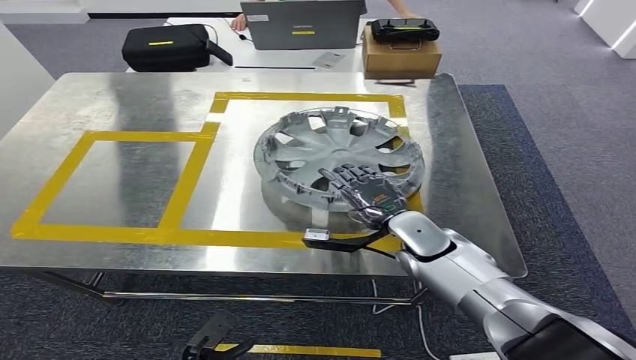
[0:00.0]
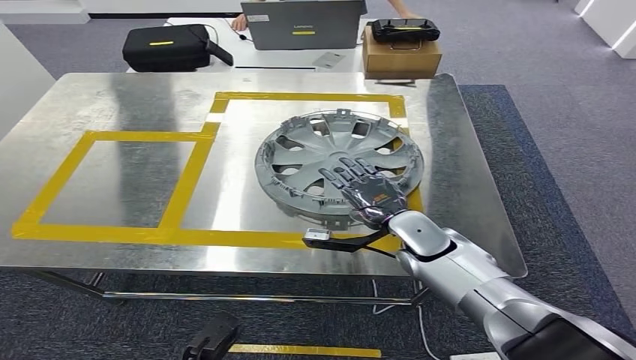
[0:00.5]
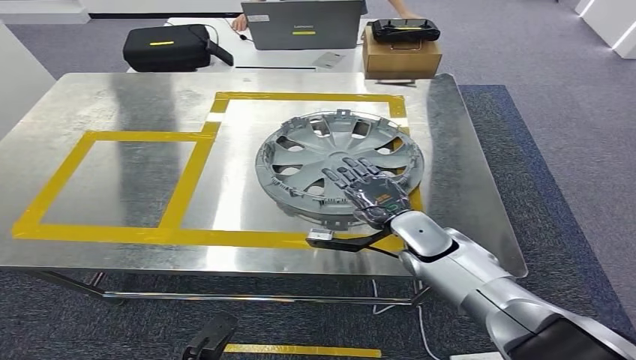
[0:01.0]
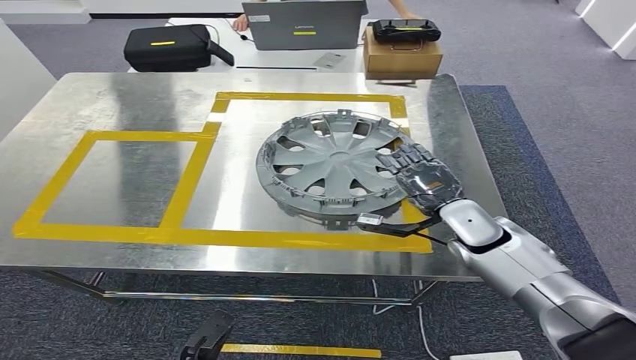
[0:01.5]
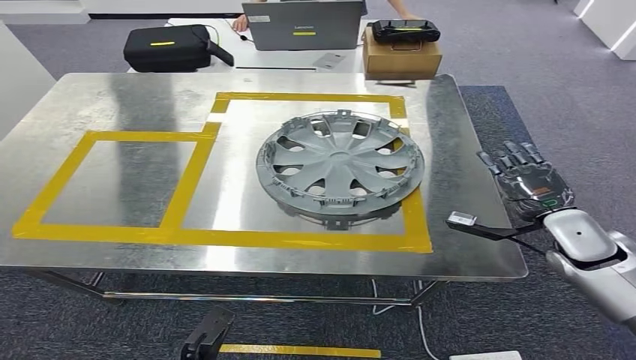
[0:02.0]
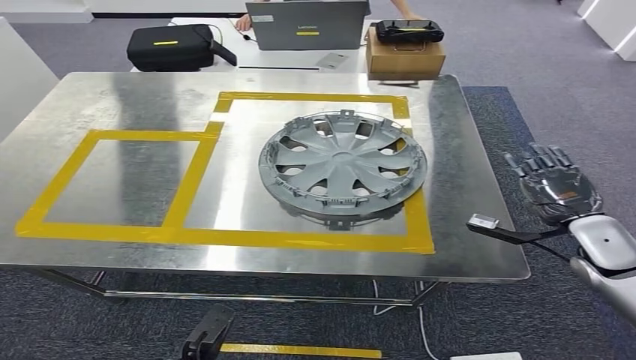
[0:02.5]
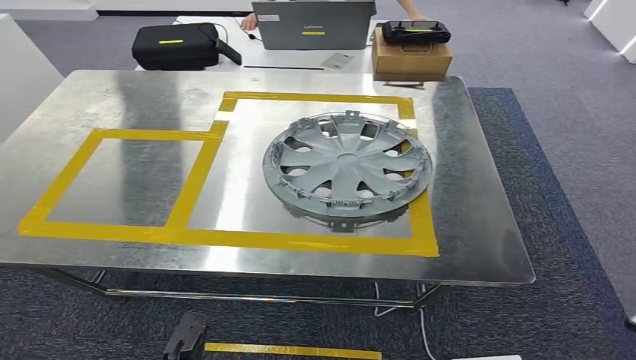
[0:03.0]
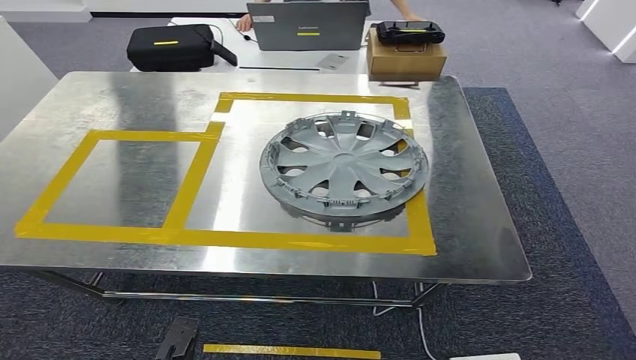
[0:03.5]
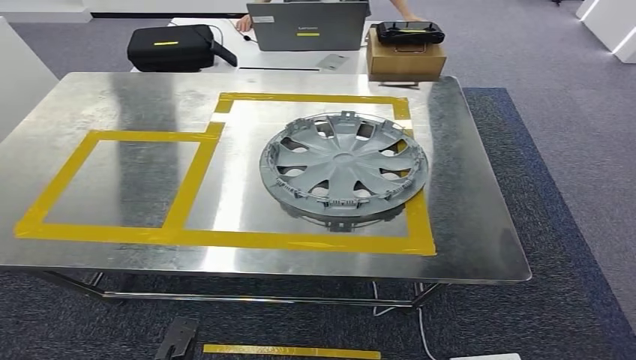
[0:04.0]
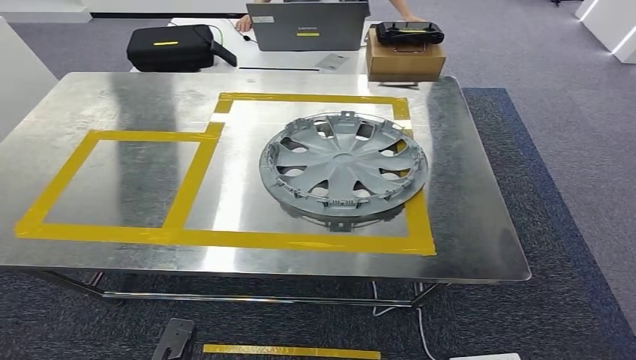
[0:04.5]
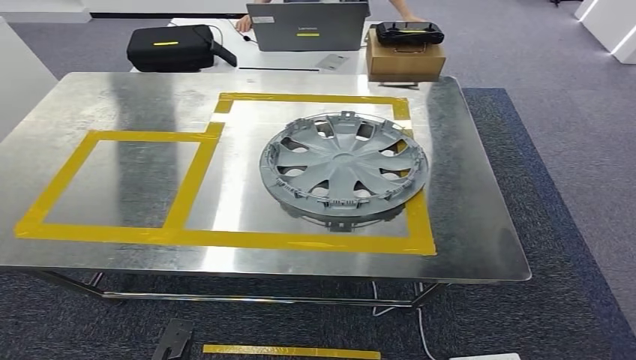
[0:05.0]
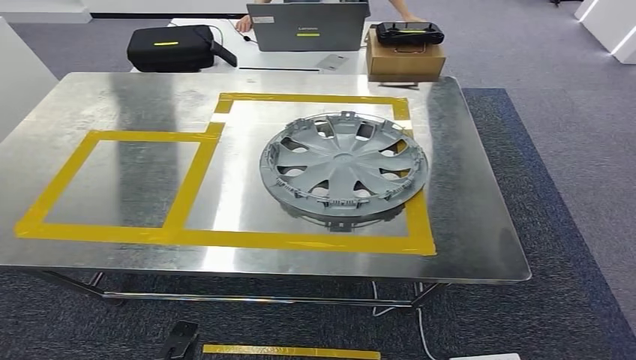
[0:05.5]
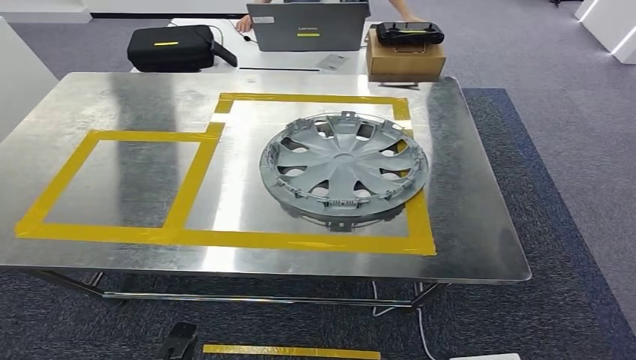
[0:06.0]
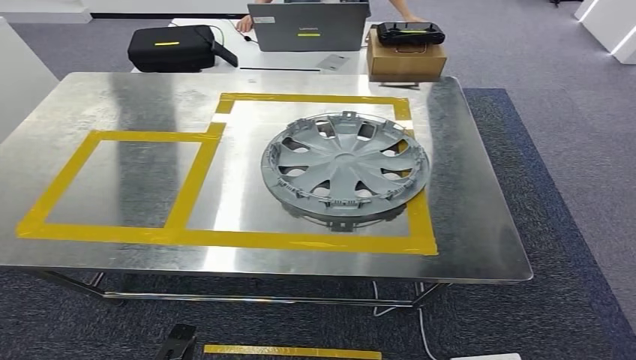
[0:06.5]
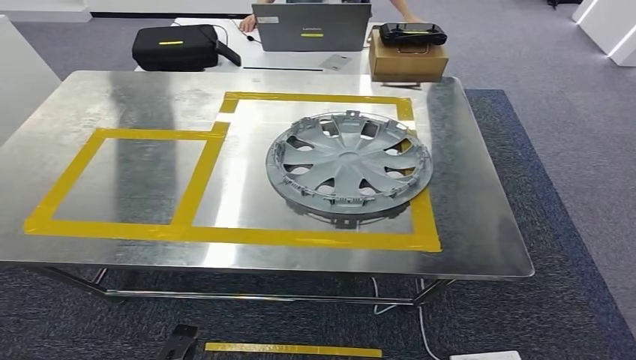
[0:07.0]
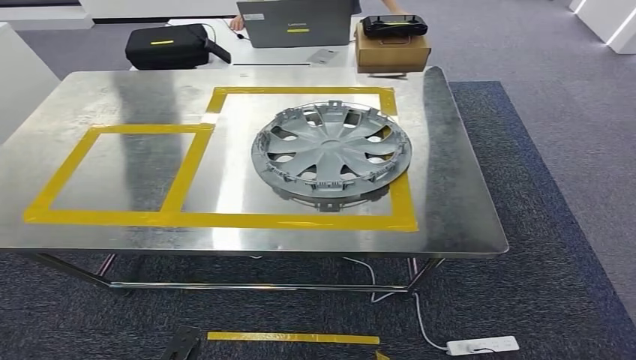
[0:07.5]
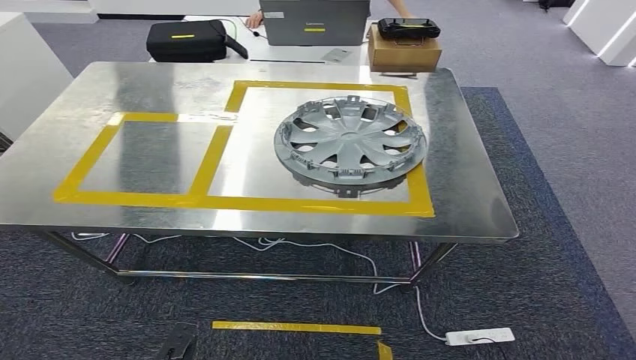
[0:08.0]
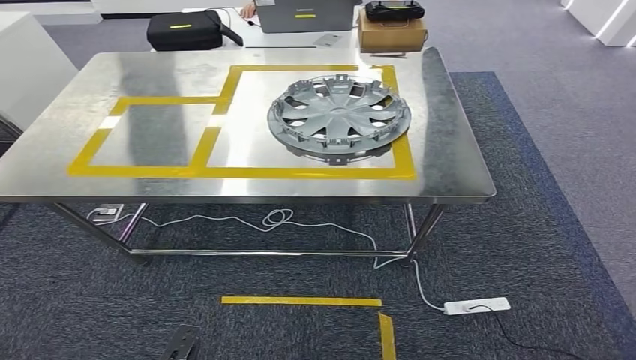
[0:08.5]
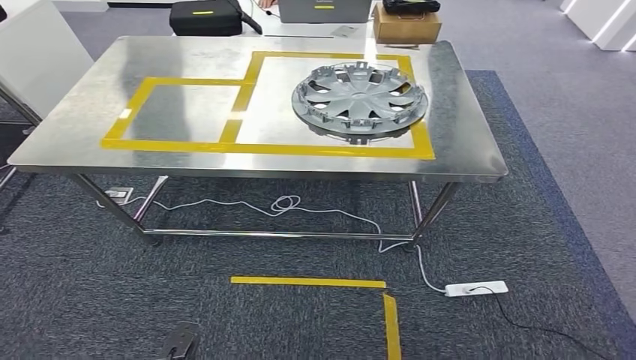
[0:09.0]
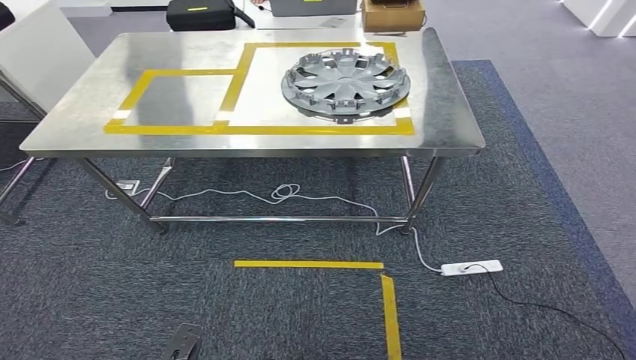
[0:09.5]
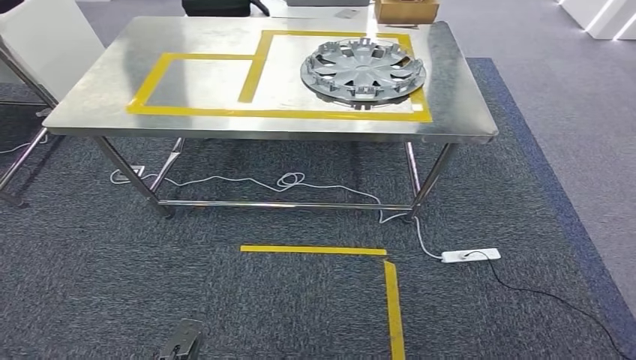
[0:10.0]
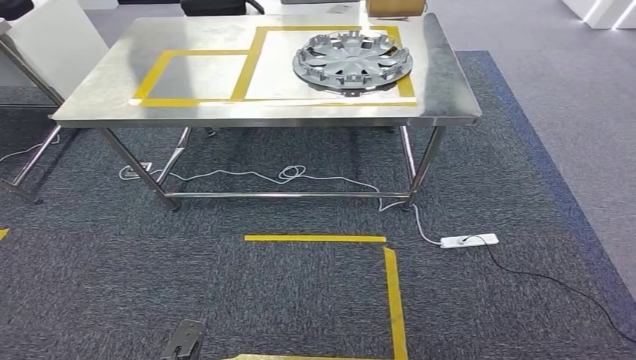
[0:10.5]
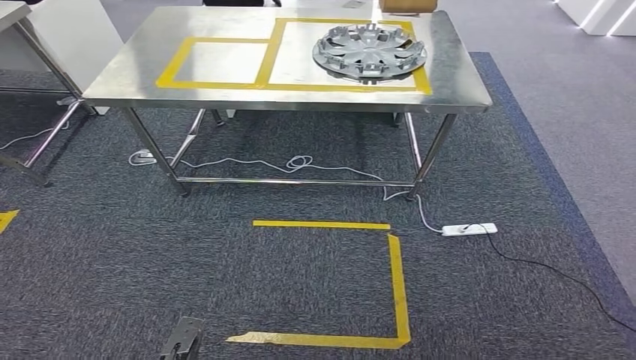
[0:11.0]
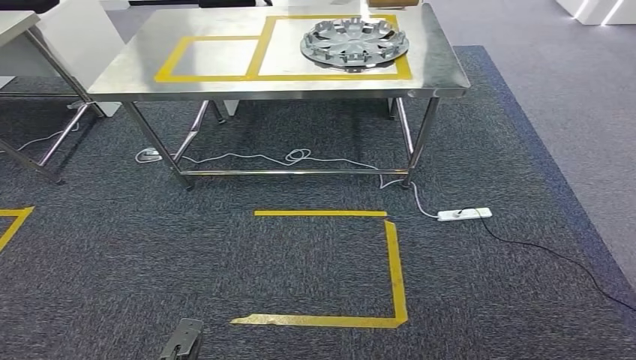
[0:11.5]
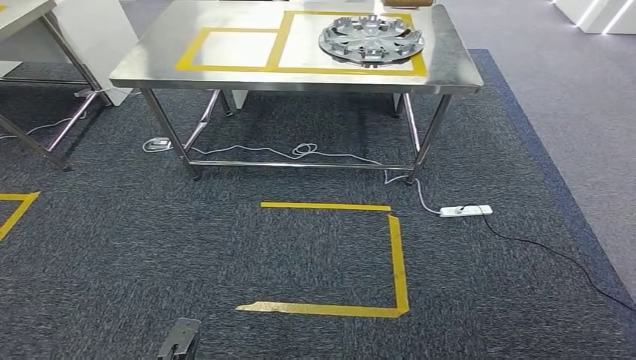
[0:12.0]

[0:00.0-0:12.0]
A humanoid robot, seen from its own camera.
0:00.0 to 0:02.0: The right hand moves to the right, some 20 cm.
0:02.0 to 0:04.0: The right hand moves backward and to the right, some 50 cm.

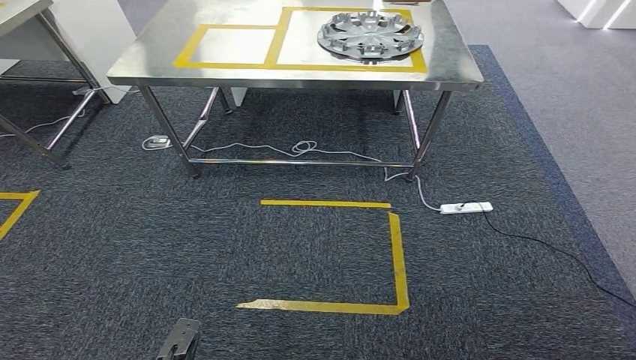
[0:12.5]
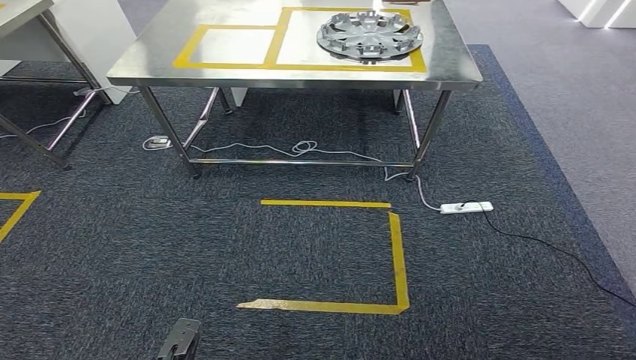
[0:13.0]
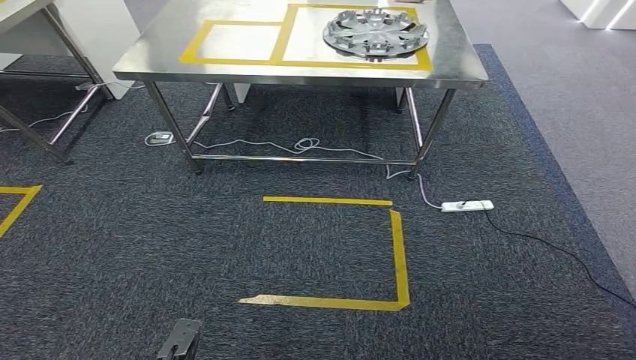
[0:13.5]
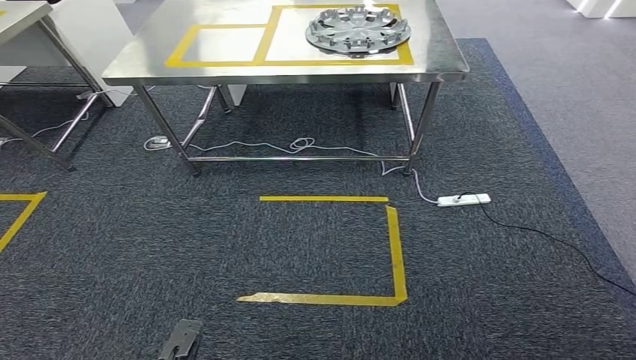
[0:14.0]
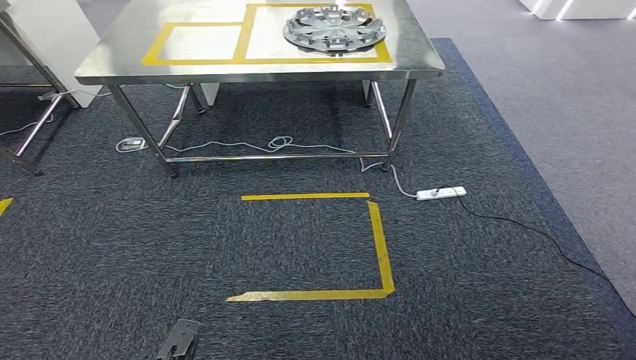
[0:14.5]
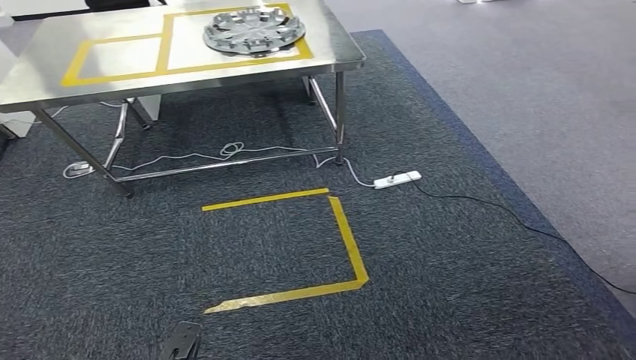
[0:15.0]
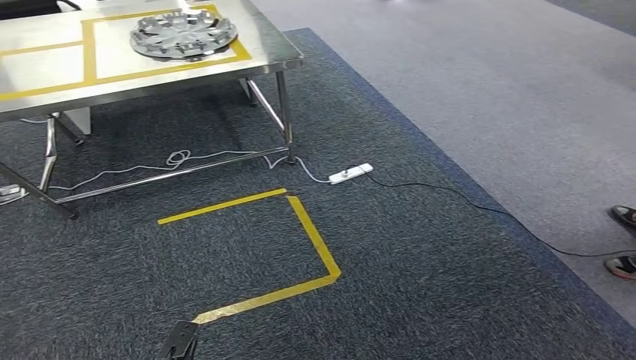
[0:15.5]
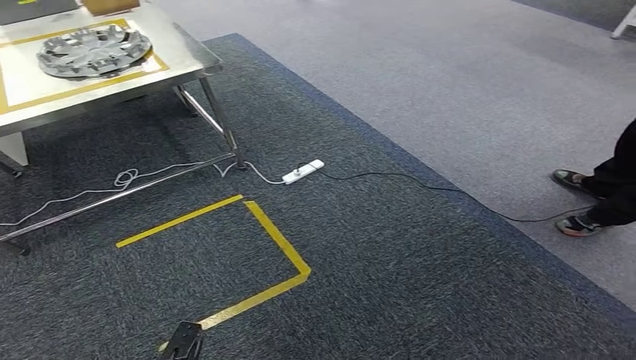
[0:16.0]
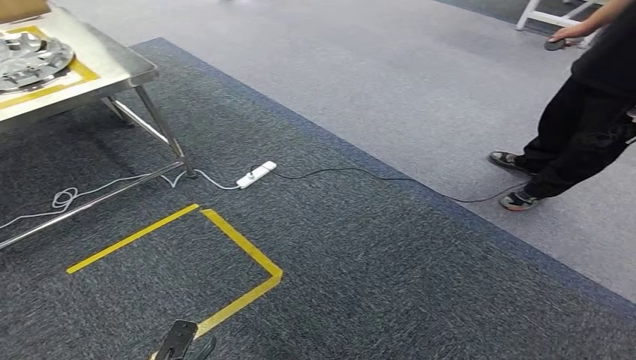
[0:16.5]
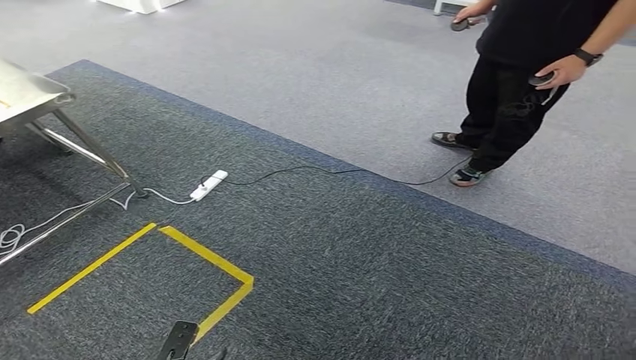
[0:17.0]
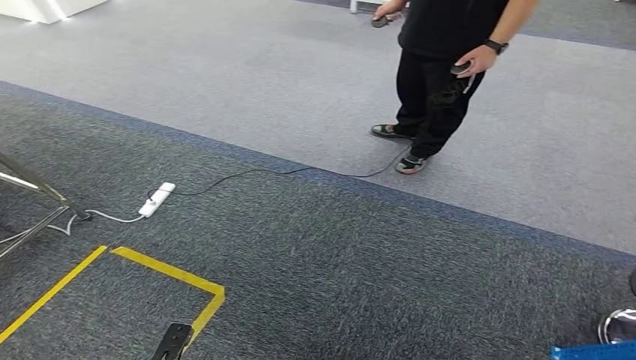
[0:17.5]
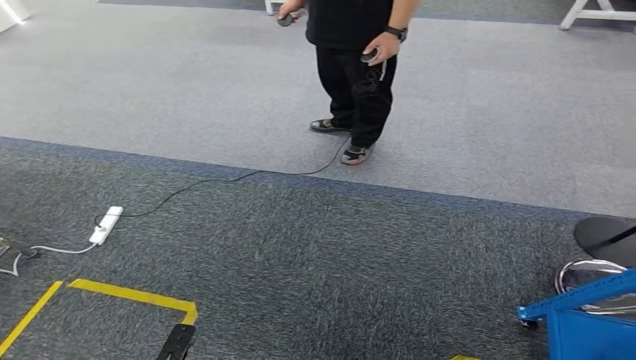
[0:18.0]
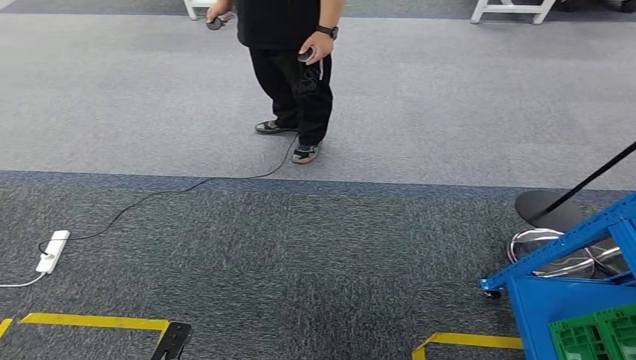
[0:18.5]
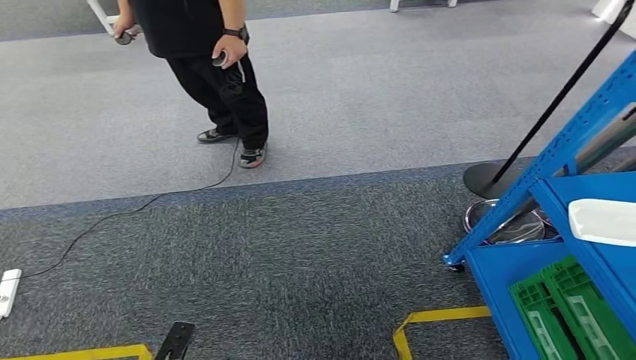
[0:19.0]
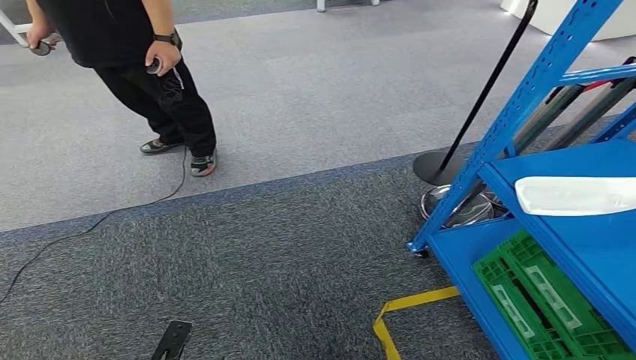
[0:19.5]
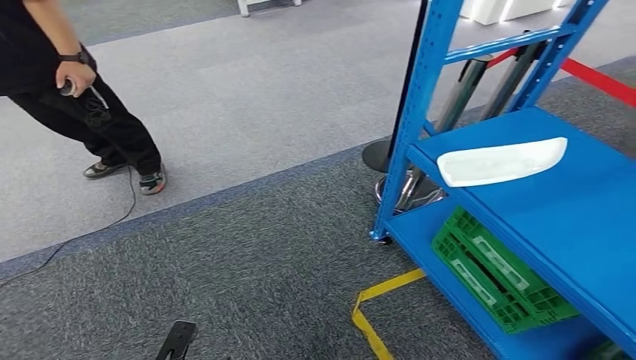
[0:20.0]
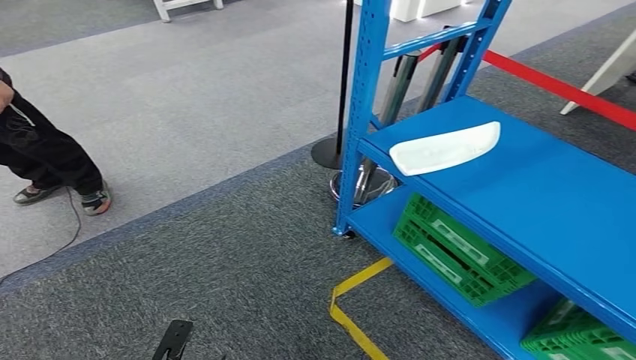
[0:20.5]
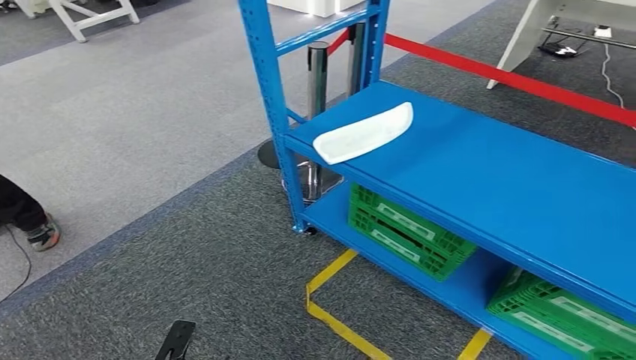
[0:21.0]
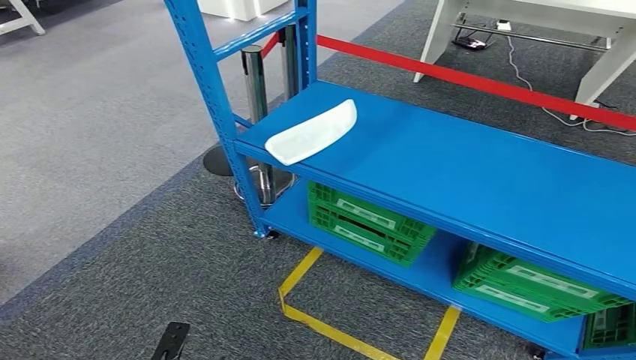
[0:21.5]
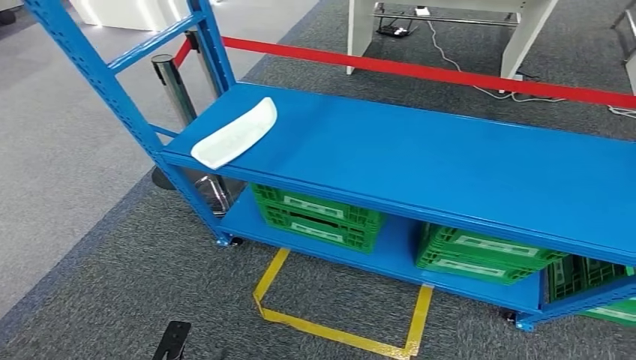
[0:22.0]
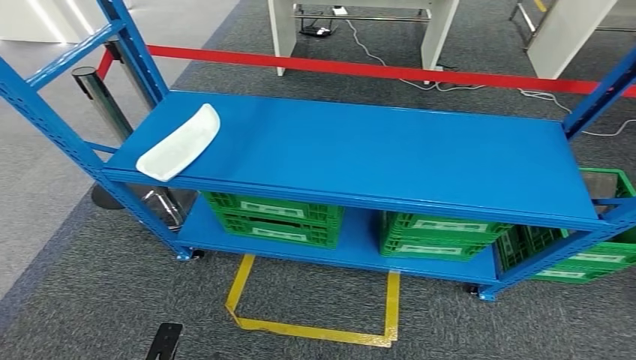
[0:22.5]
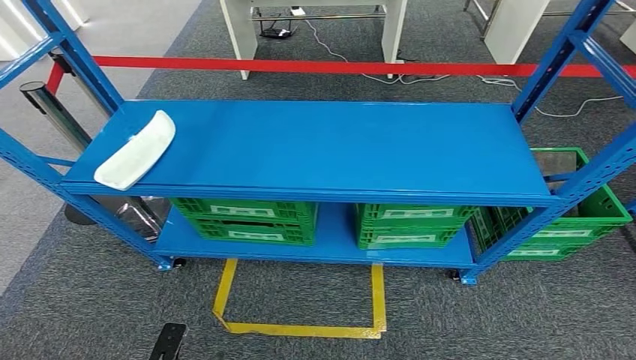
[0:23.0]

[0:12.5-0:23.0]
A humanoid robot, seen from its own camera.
Step, 0:12.5 to 0:23.0: Move to the initial position at the workbench.
